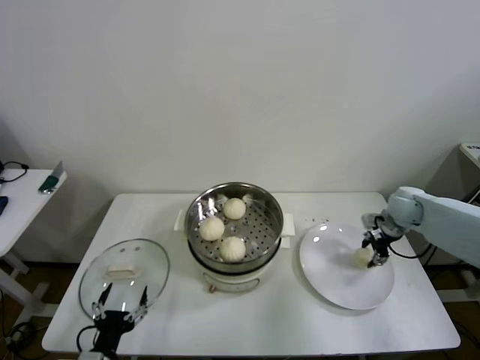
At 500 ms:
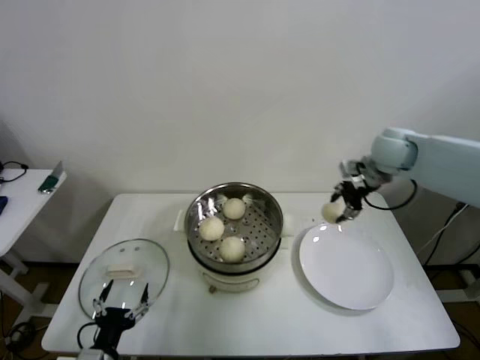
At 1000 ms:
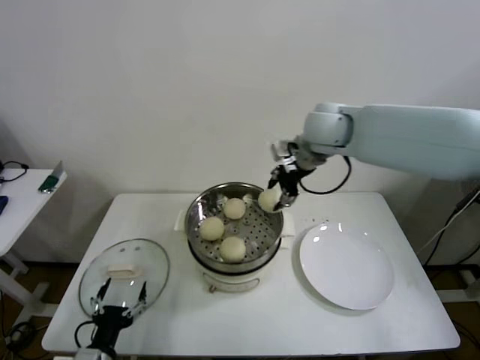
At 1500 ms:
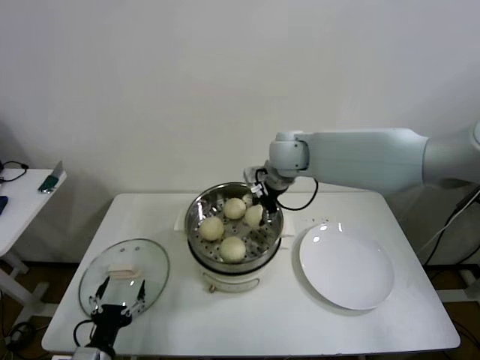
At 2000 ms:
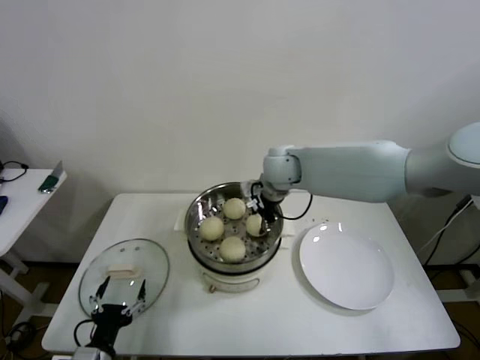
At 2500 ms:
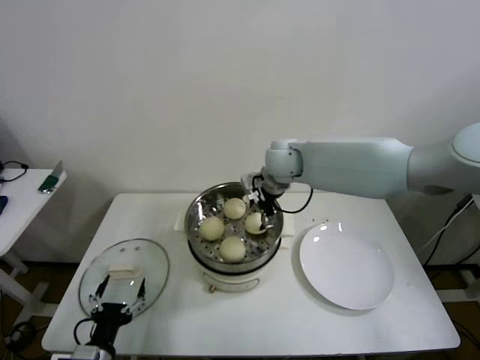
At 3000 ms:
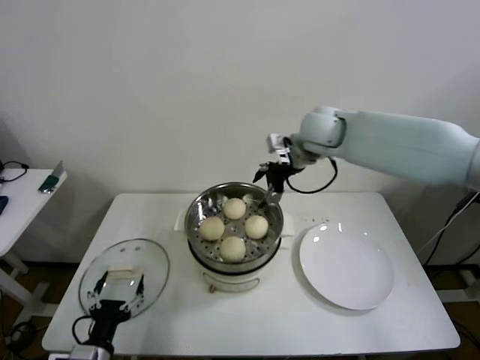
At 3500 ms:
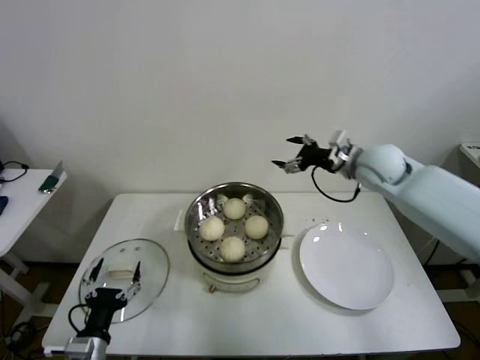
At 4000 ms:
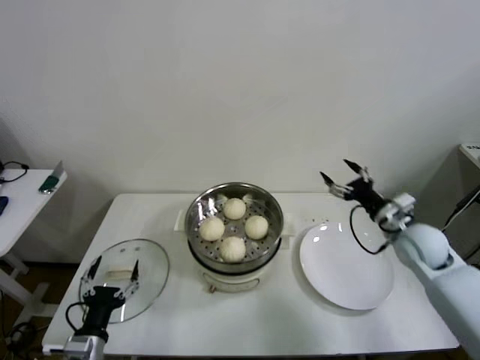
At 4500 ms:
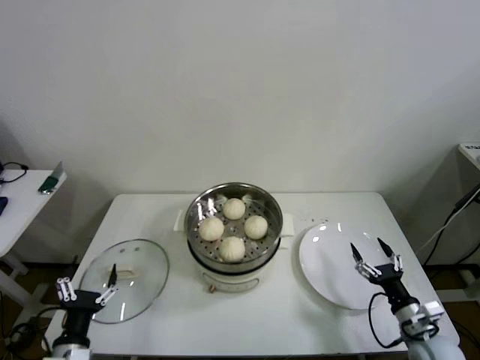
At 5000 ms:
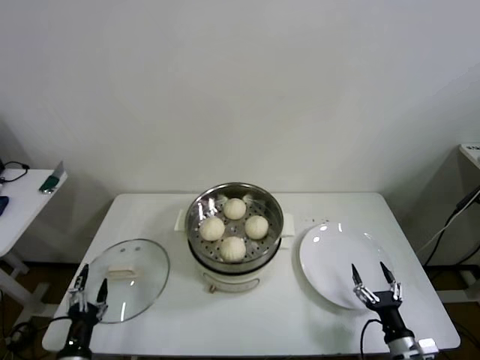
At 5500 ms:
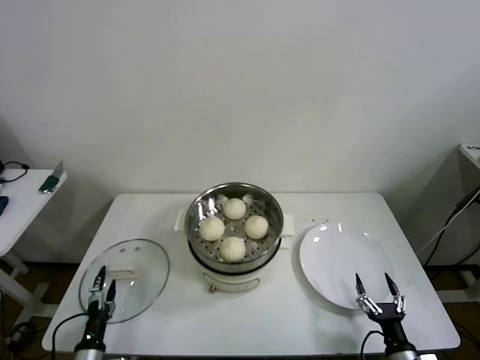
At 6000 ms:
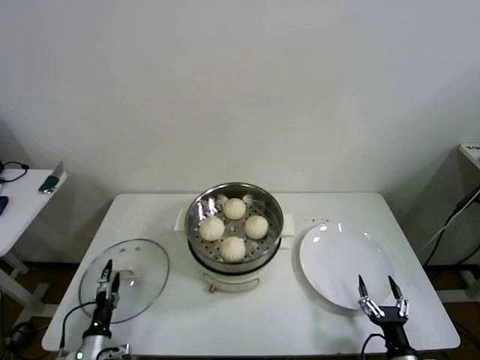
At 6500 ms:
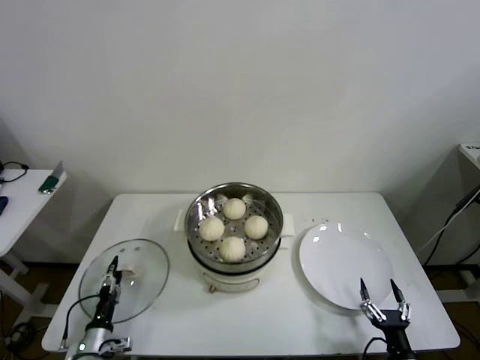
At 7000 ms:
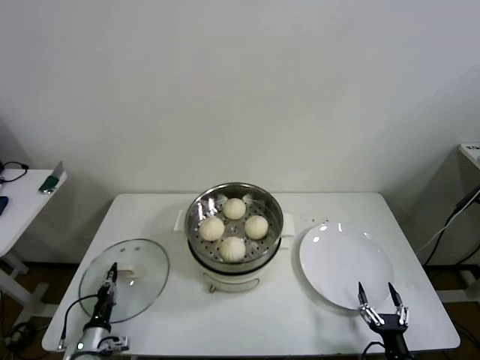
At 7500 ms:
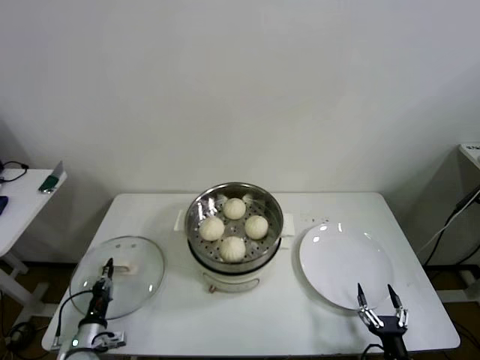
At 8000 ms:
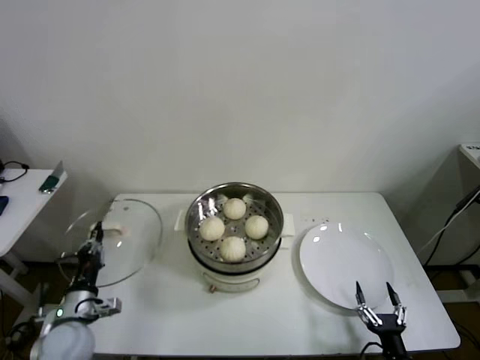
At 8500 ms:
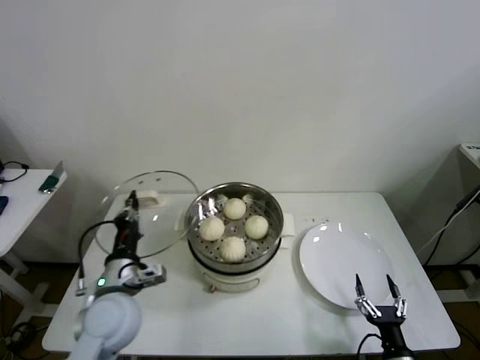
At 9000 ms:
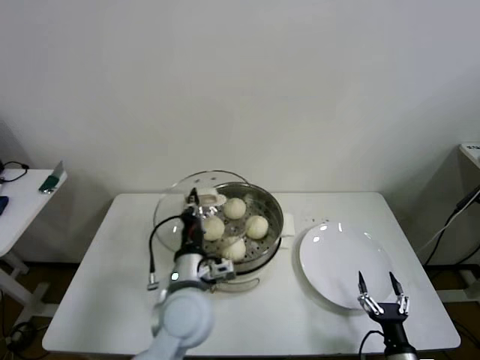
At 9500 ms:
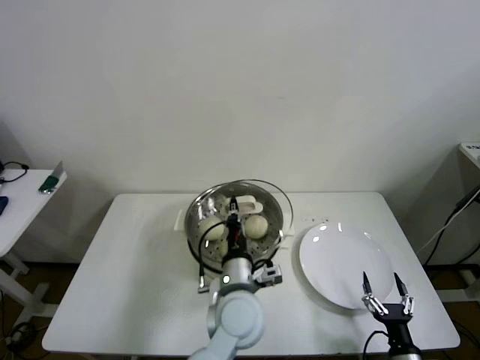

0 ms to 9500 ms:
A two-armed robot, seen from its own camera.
Step, 0 ms to 2500 ms: Place the baozi on the steamer with right gripper.
Step, 3000 ms to 7000 ms: Grasp the pot lid with left gripper.
0 ms to 2000 ms: The right gripper is displaced to the left by some 35 cm.
2000 ms to 4000 ms: The right gripper heads to the right, backward and downward, covering about 35 cm, and opens.
4000 ms to 5500 ms: The left gripper heads downward, covering roughly 10 cm. Meanwhile the right gripper goes roughly 35 cm backward and downward.
5500 ms to 7500 ms: The left gripper travels forward by approximately 5 cm, and closes.
7500 ms to 9500 ms: The left gripper is displaced to the right and upward by roughly 40 cm.

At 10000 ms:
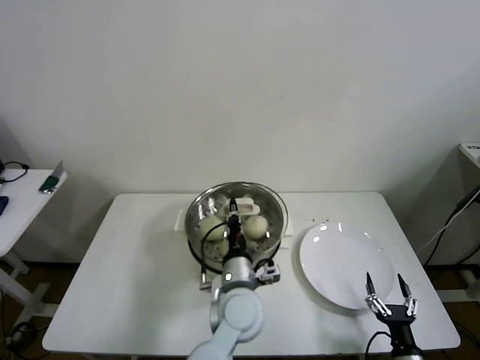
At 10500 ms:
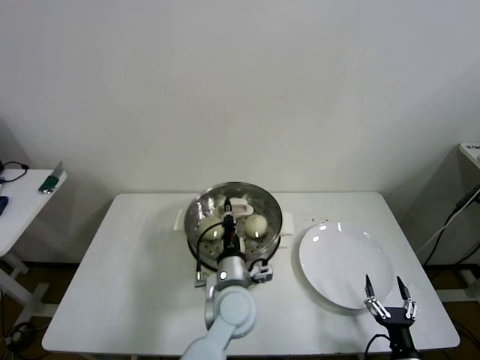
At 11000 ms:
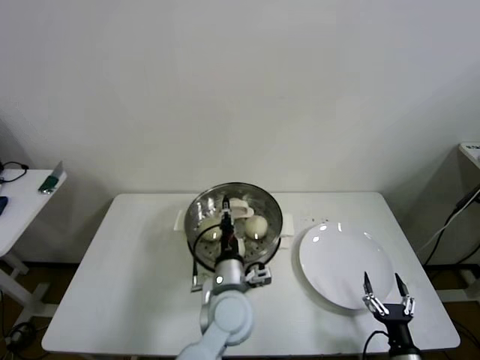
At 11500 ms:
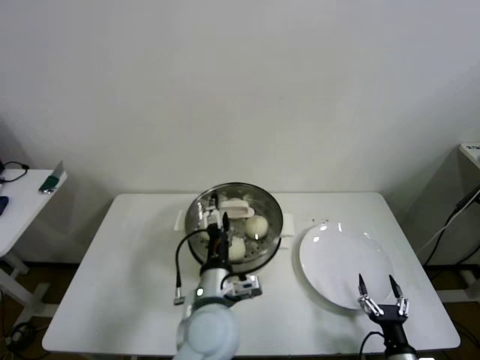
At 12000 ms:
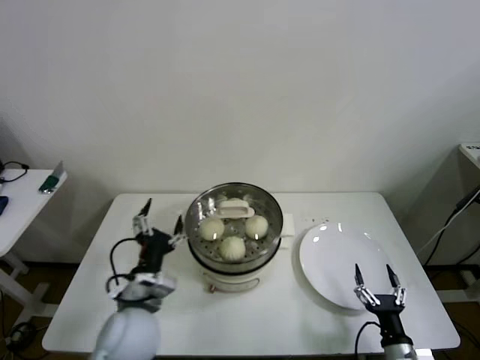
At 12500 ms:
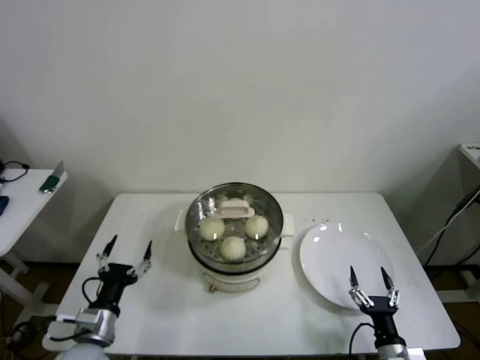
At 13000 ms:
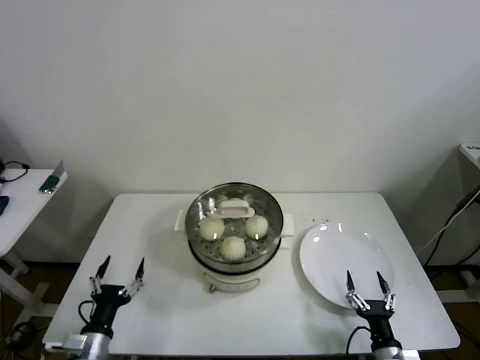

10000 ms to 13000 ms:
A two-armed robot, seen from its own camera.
10000 ms to 11500 ms: The left gripper changes place by roughly 5 cm, and opens up.
11500 ms to 13000 ms: The left gripper moves to the left and downward, some 30 cm.
